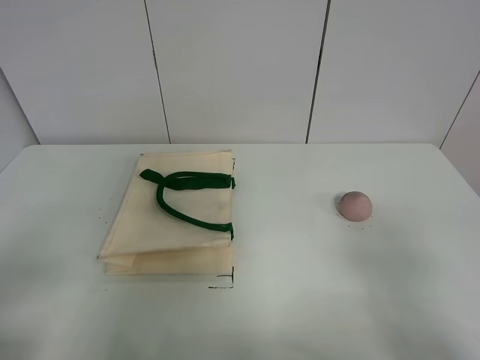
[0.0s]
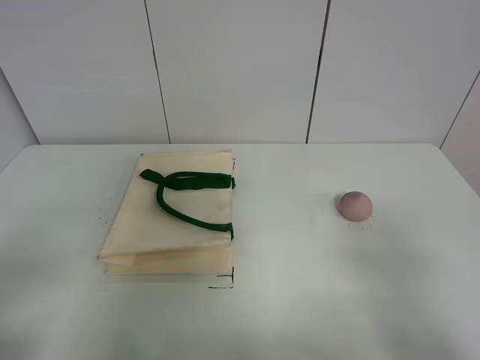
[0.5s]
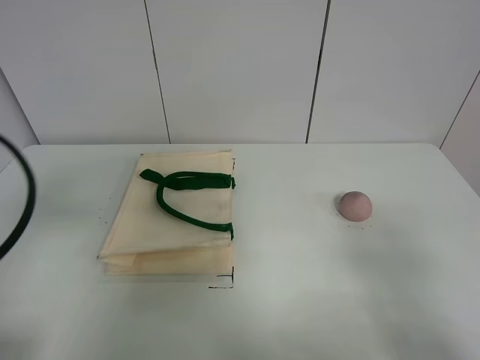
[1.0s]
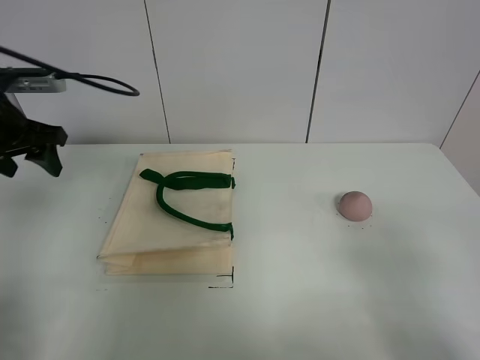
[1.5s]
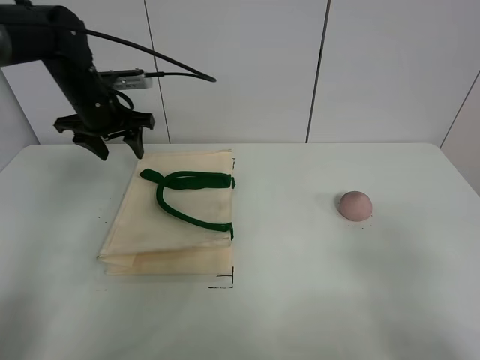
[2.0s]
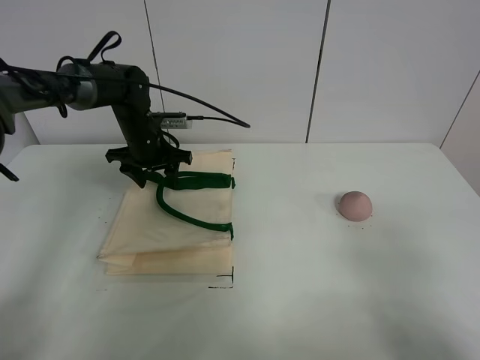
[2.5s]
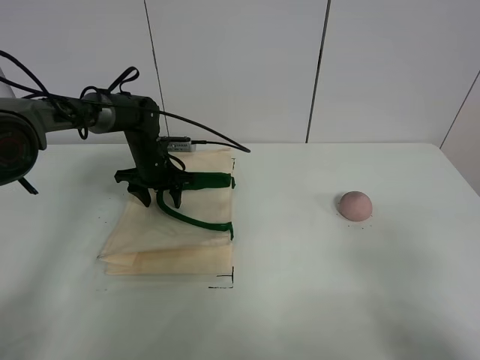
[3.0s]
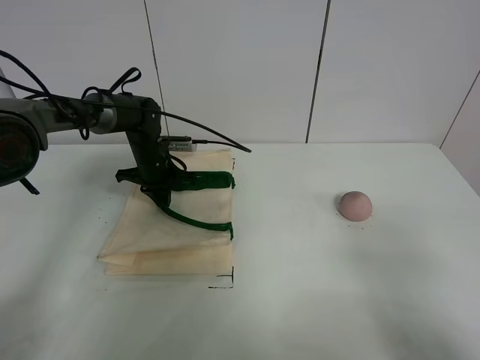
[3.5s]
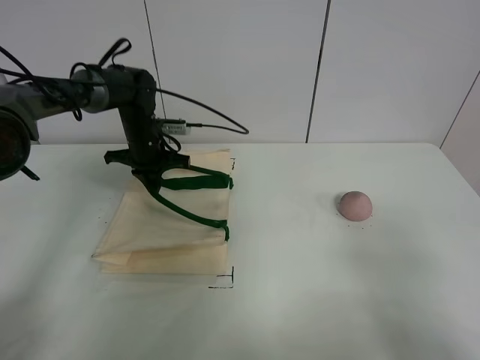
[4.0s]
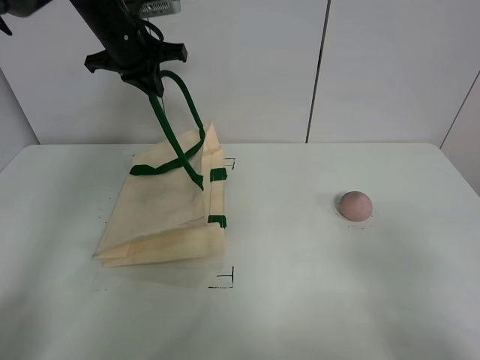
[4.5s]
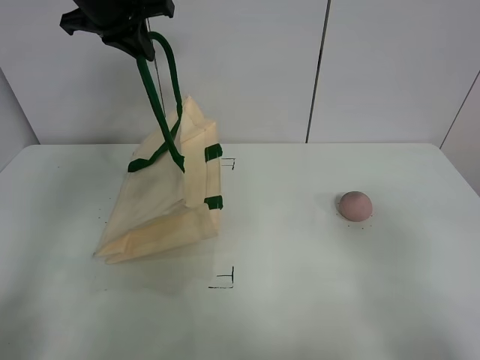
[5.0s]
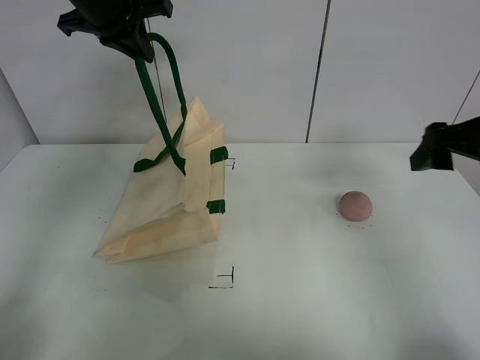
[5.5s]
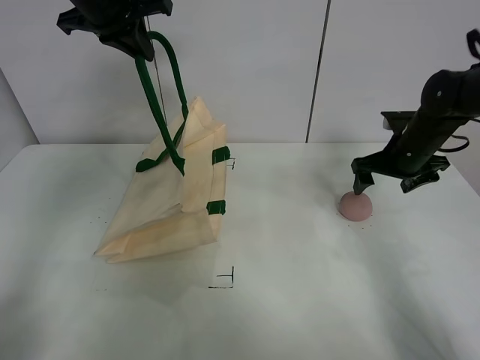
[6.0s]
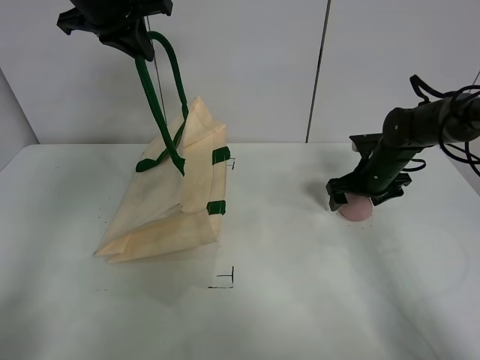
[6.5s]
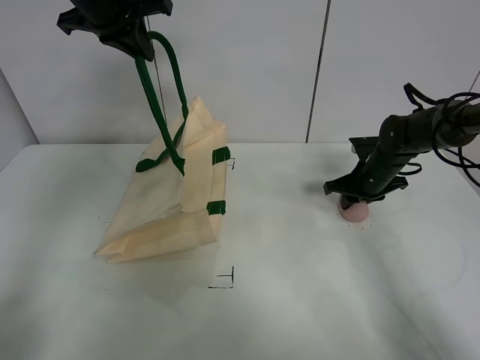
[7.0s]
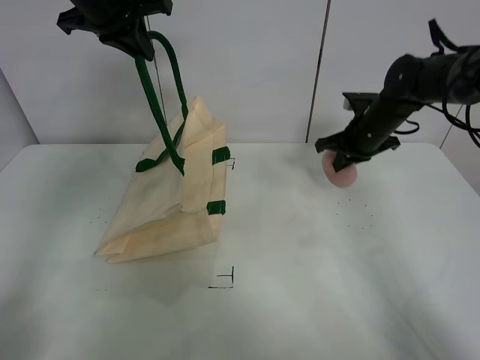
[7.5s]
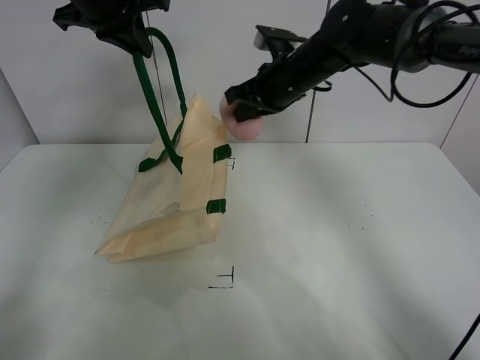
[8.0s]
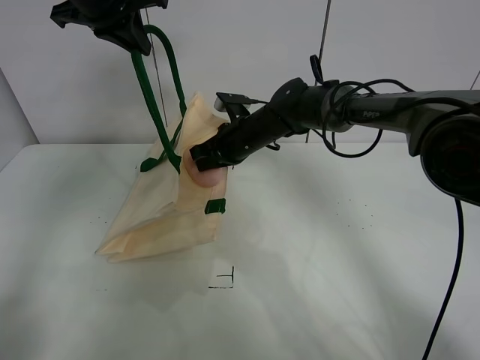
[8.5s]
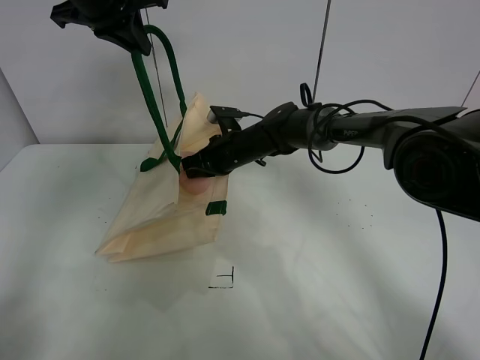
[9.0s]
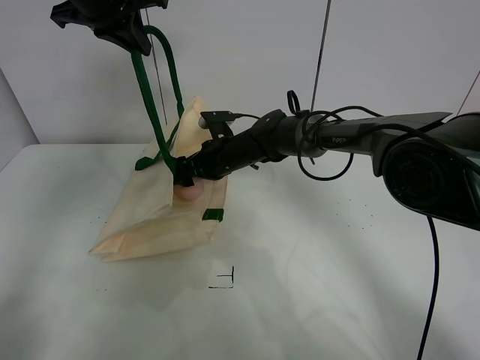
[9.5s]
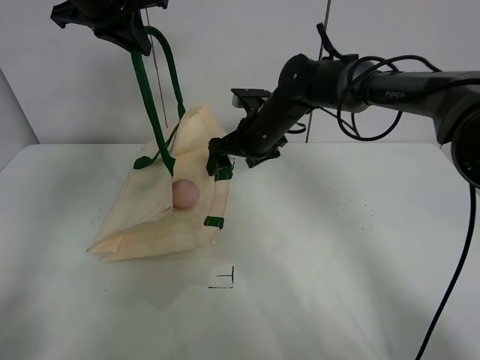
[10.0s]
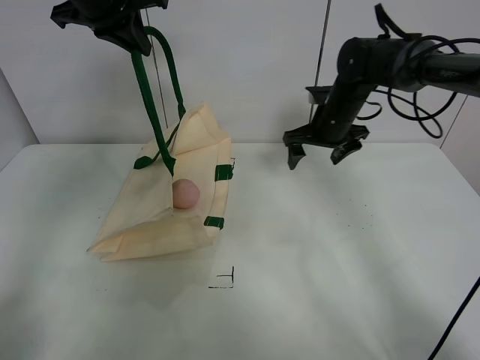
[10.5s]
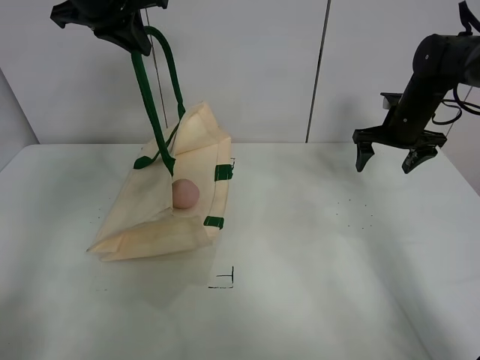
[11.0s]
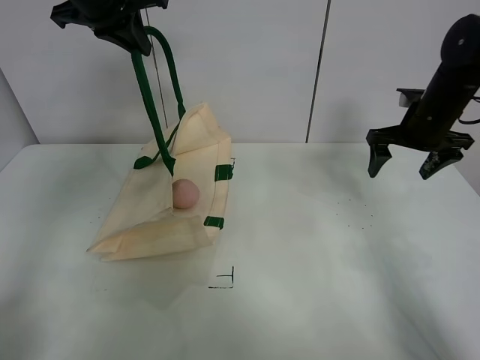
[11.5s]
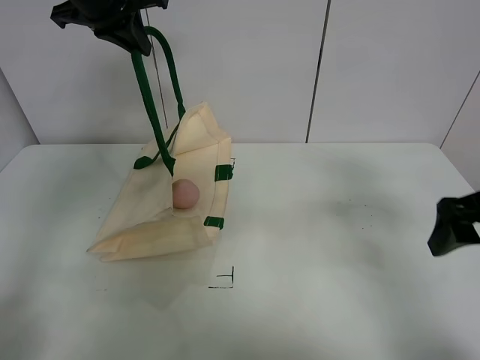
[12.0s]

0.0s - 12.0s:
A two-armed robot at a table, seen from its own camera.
Task of the whole recording: open the white linen bag and put the peach in the bag.
Step, 0.0s - 4.5s: Lift the handbag with left gripper.
Step, 5.0s - 7.0s: Grasp the peach with right gripper.
Step, 7.5s - 9.5s: Place the peach in the handbag with right gripper.
0.0s - 2.0s: The left gripper shifts roughly 40 cm forward.
2.0s - 4.0s: The left gripper moves downward, some 10 cm, and closes up.
4.0s - 6.0s: The left gripper heads upward, covering about 25 cm. The right gripper shifts approximately 40 cm forward.
6.0s - 8.0s: The right gripper moves to the left and upward, approximately 25 cm, and closes.
8.0s - 10.0s: The right gripper goes about 5 cm downward, and opens its fingers.
10.0s - 12.0s: The right gripper goes about 35 cm to the right and backward.

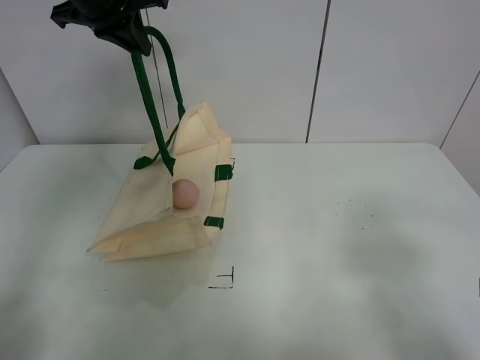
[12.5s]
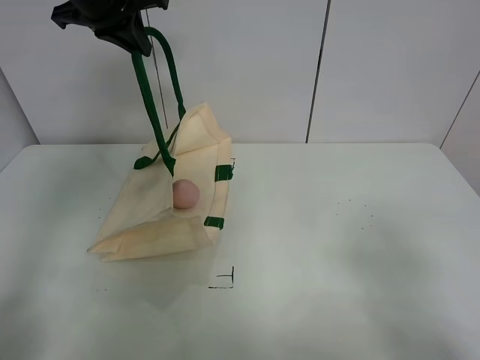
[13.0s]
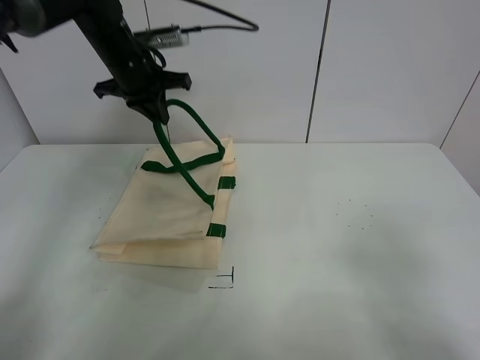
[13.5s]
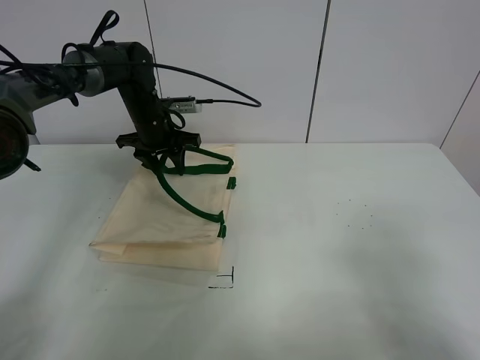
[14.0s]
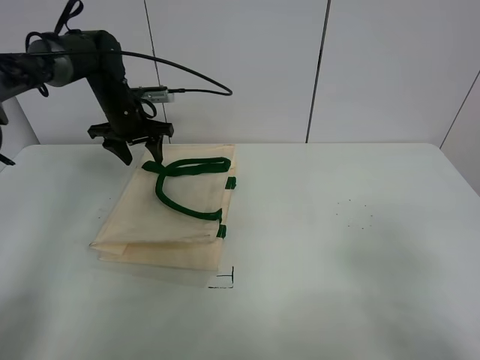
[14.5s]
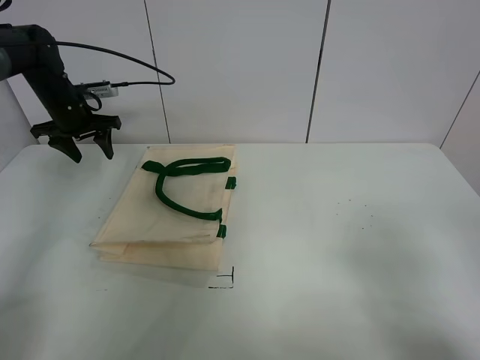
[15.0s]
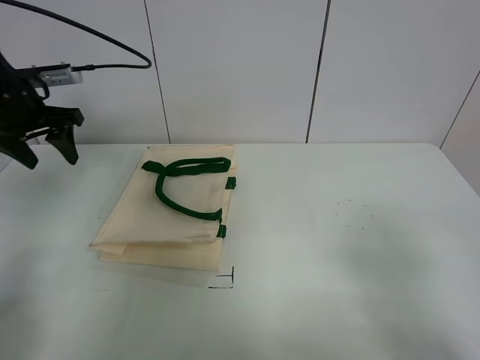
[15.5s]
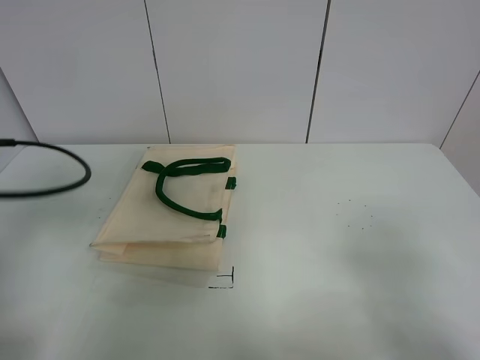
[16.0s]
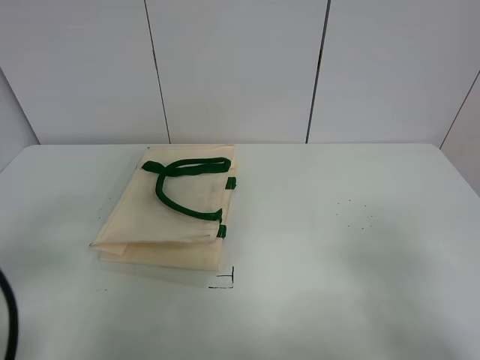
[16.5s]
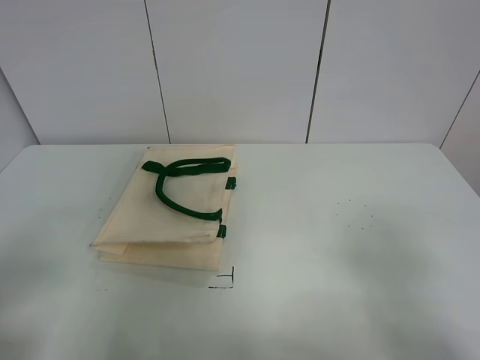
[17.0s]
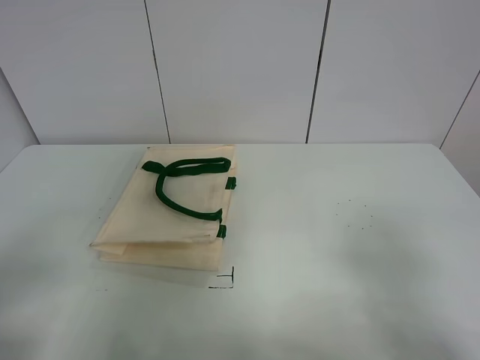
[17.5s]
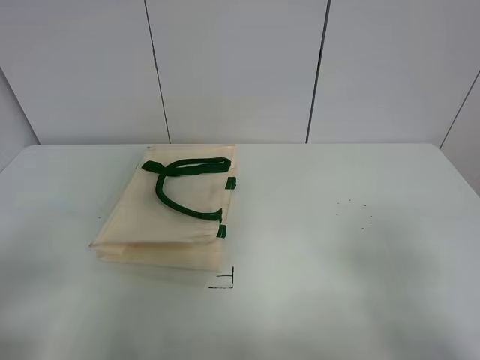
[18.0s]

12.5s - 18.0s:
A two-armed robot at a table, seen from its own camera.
Task of the whole recording: open the white linen bag and put the peach in the bag.
12.5s - 14.5s: The left gripper is displaced downward by roughly 20 cm, and opens.
14.5s - 16.0s: The left gripper travels backward by about 35 cm.
16.0s - 18.0s: The left gripper goes some 15 cm backward.
